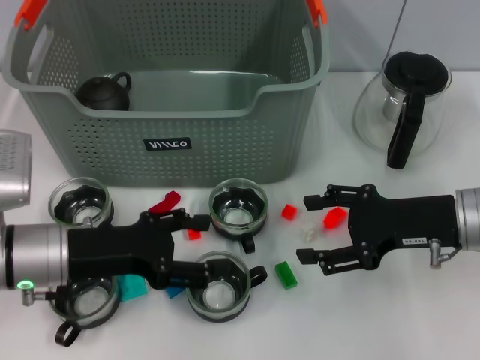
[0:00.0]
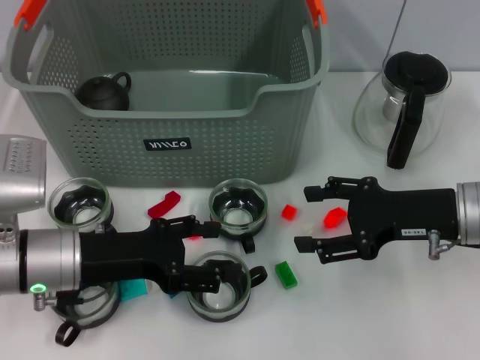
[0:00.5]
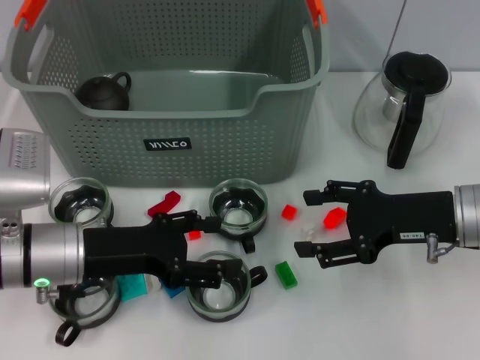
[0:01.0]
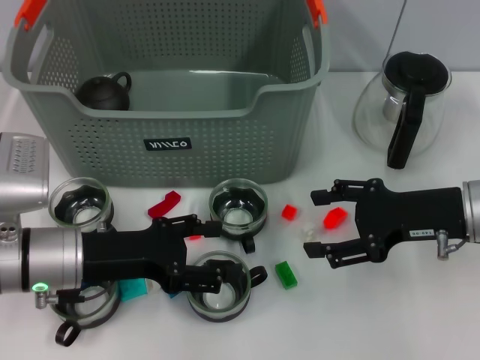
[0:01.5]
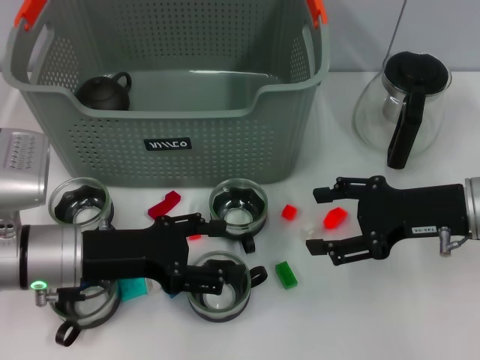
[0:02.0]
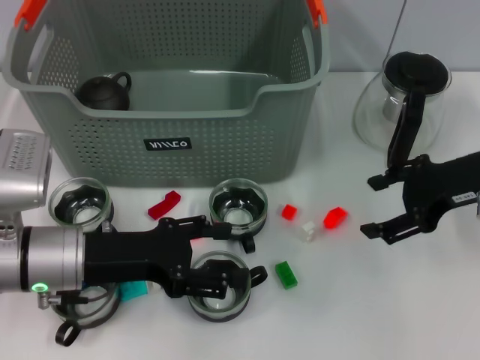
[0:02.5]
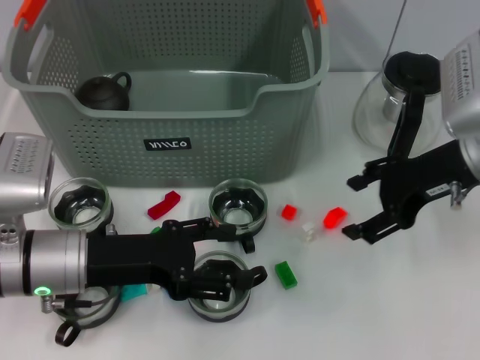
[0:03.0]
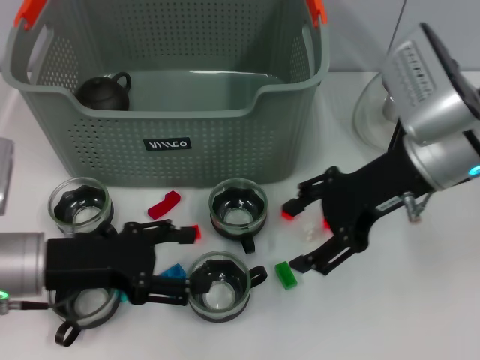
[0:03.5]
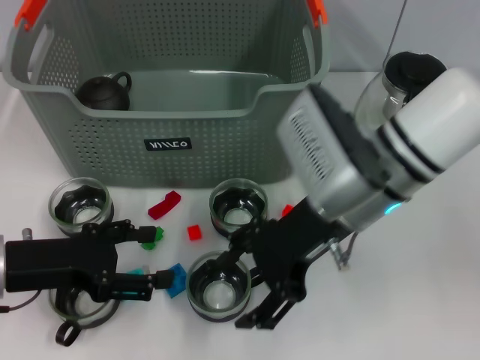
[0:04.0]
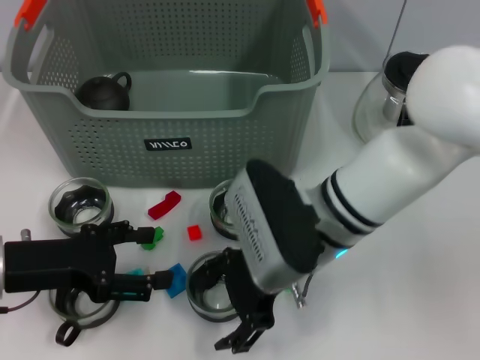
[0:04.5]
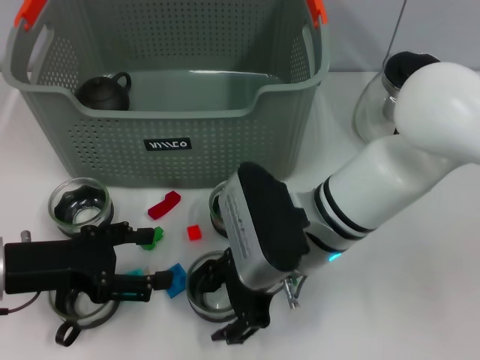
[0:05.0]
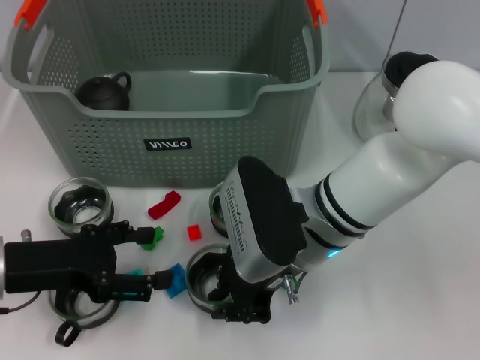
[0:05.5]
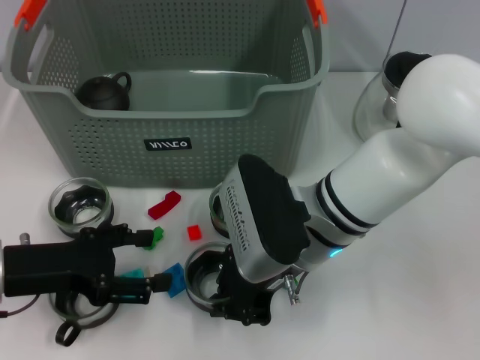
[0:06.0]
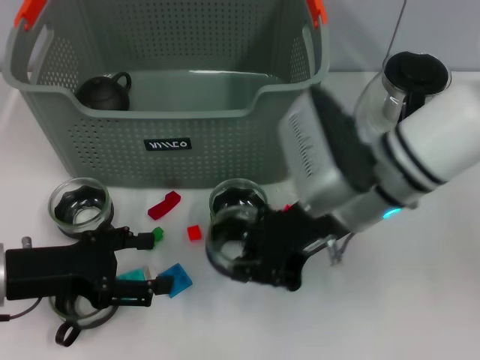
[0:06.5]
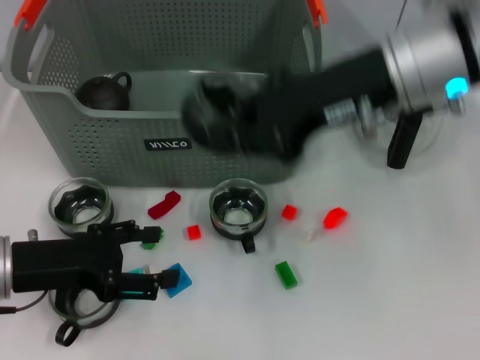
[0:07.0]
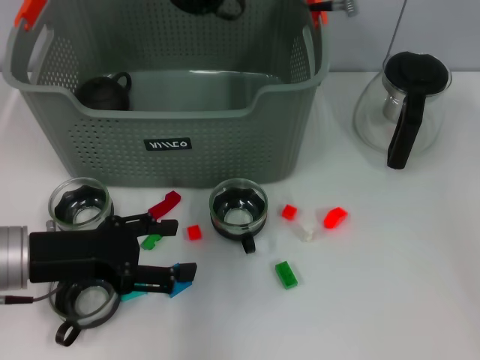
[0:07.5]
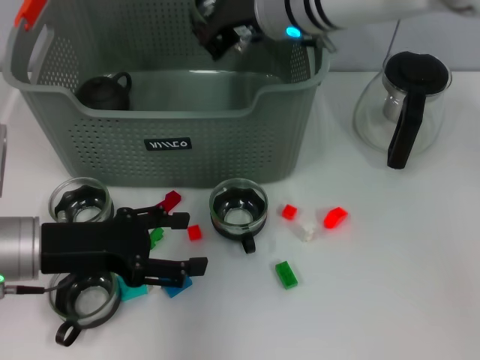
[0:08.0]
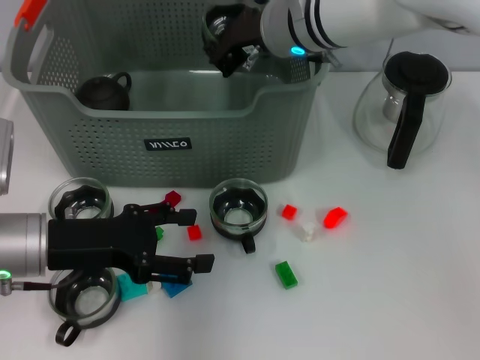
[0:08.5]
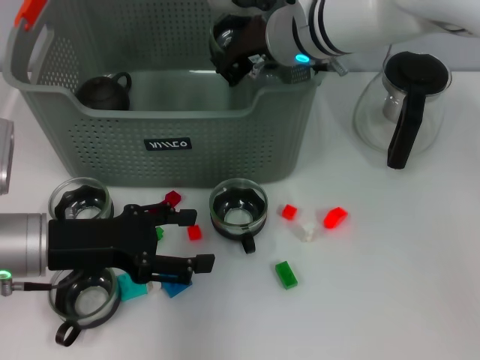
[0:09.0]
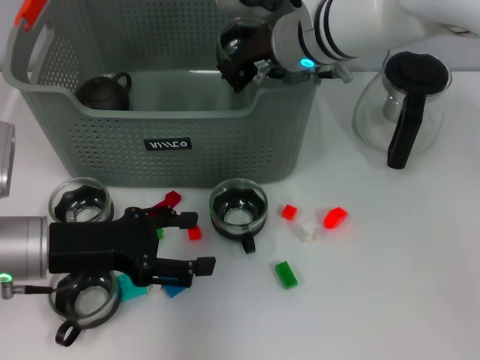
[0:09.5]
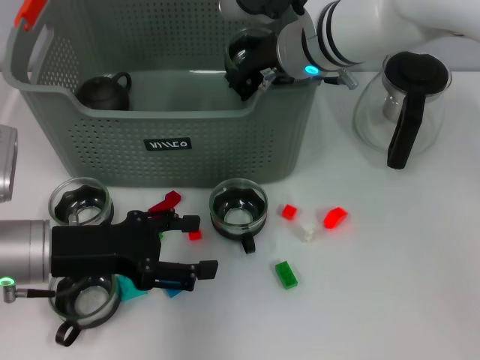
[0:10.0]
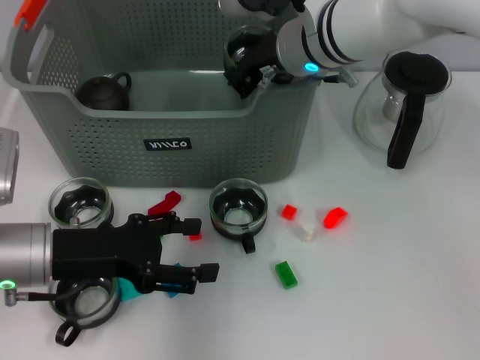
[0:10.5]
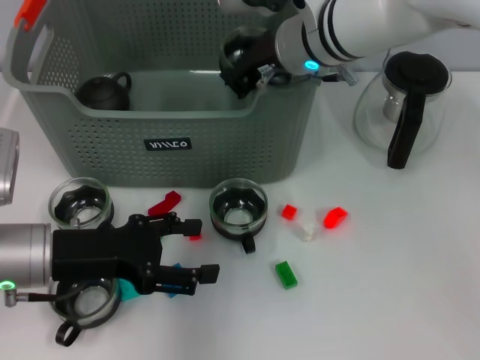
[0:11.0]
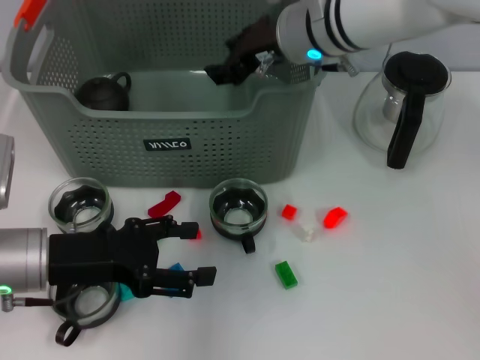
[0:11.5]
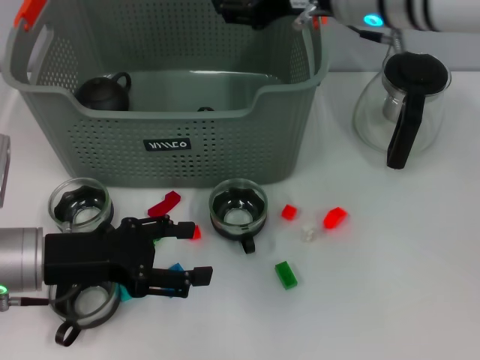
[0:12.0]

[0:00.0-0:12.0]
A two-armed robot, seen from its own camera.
Task of the whole recording: pick up the teacup on the table and place it into the storage bin, pick up the block on the table and place it into the storage bin.
Step, 0.0 to 5.5 s: Grasp the cup with right gripper.
Step, 6.0 to 11.5 s: Place the cup in the storage box with right gripper.
0.0 to 2.0 s: Both grippers stay about where they are.
2.0 to 4.0 s: The right gripper moves to the left, about 15 cm; the left gripper goes approximately 5 cm to the left.
4.0 to 6.0 s: The right gripper changes place by about 5 cm, and closes up.
6.0 to 8.0 s: The right gripper is displaced forward and upward by some 15 cm.
8.0 to 10.0 s: The grippers make only small movements.
10.0 to 12.0 s: The right gripper heads upward, covering approximately 5 cm, and opens its fingers.

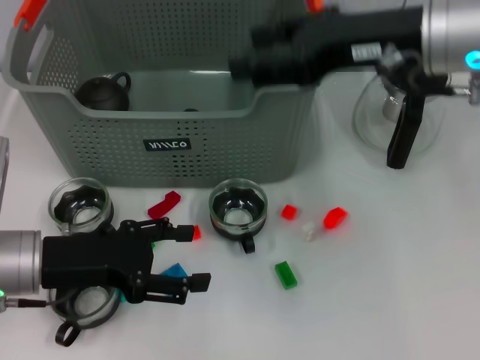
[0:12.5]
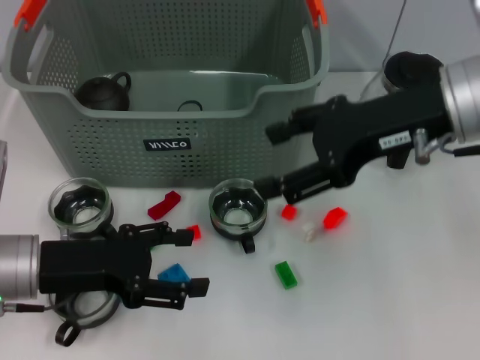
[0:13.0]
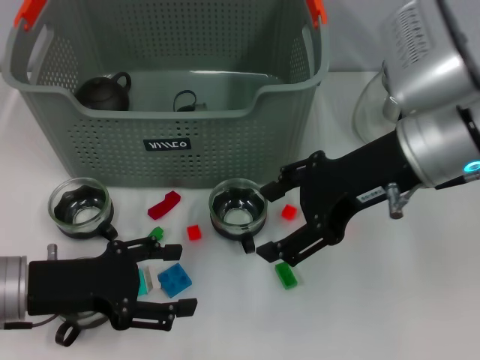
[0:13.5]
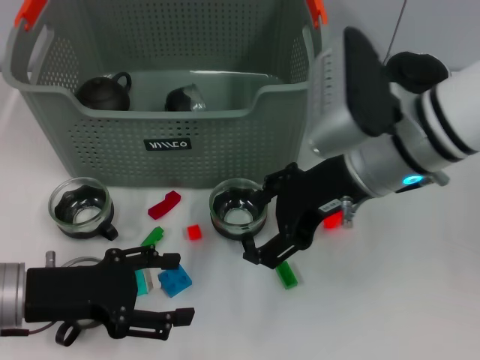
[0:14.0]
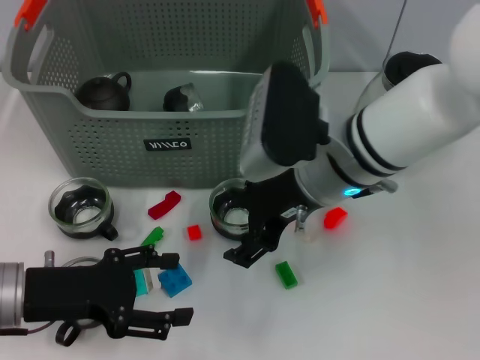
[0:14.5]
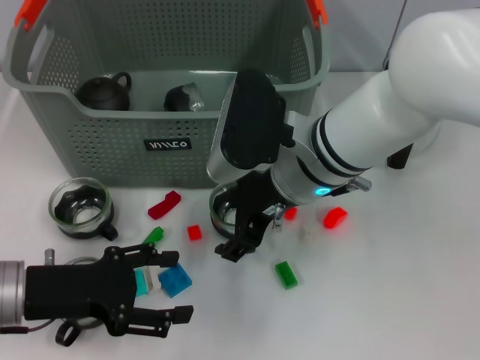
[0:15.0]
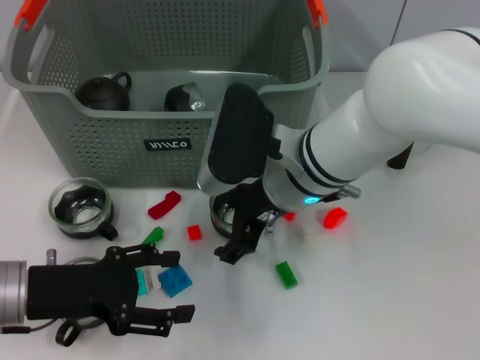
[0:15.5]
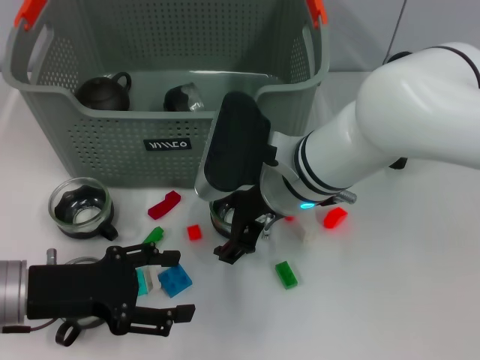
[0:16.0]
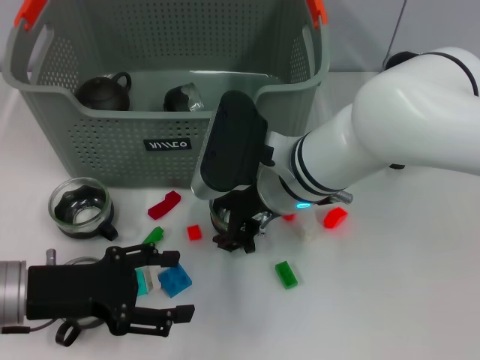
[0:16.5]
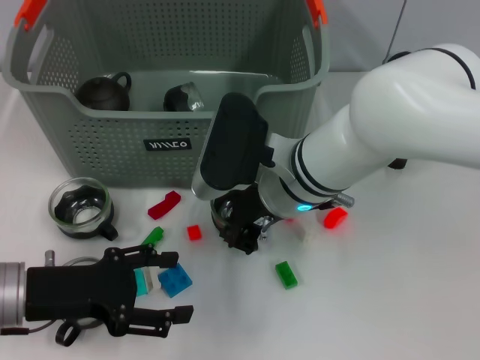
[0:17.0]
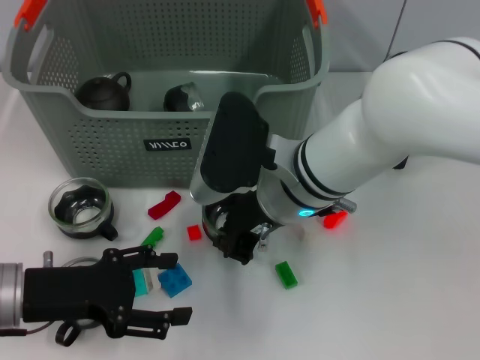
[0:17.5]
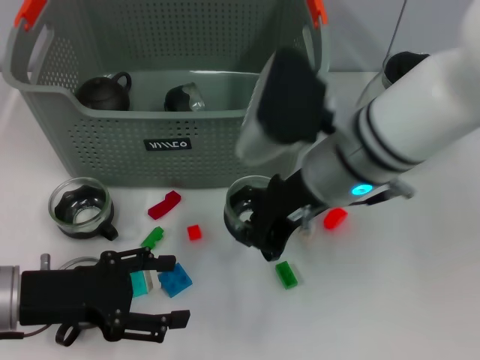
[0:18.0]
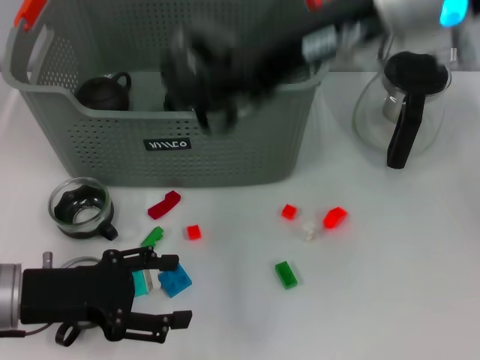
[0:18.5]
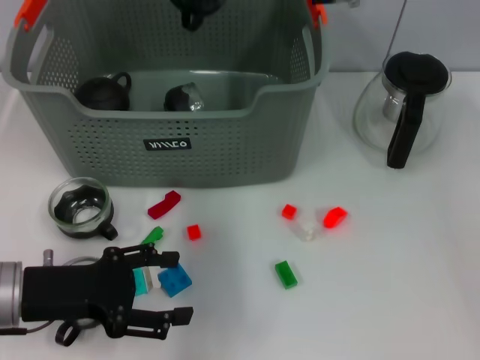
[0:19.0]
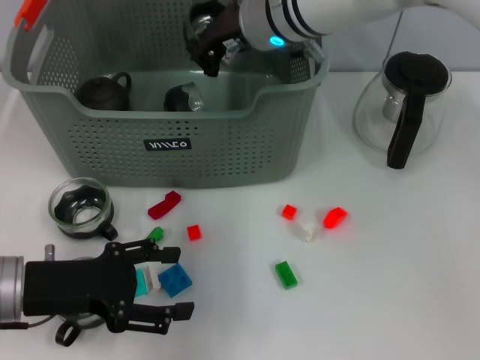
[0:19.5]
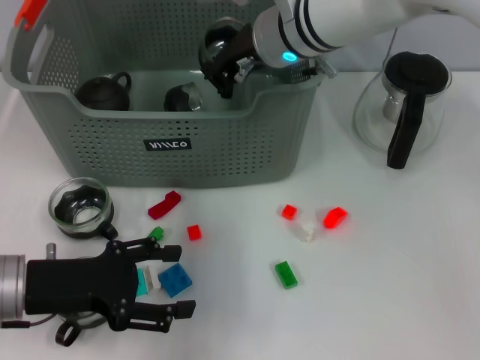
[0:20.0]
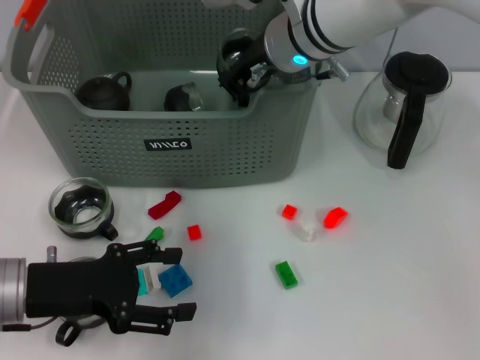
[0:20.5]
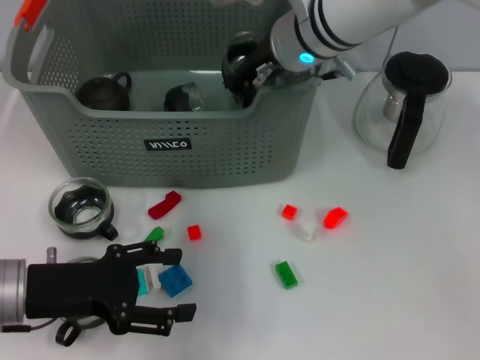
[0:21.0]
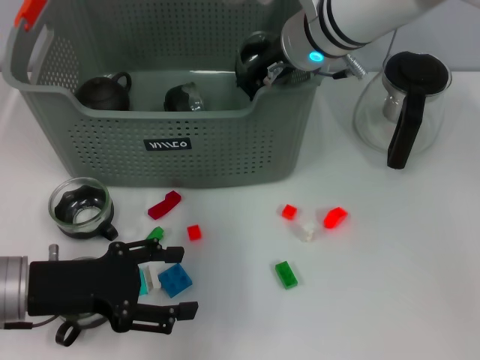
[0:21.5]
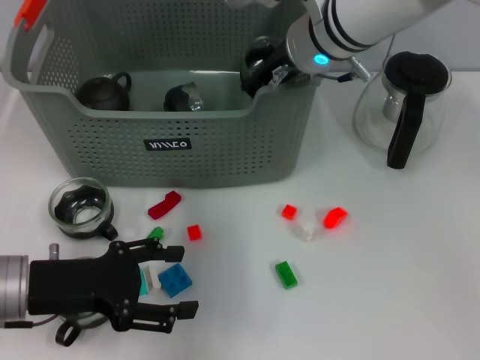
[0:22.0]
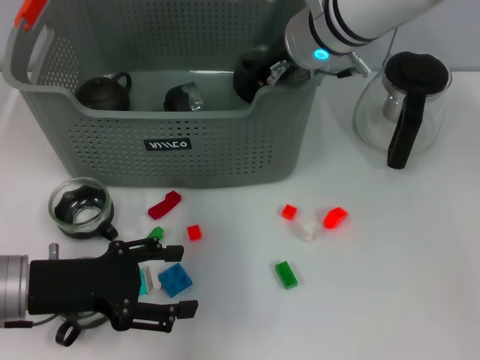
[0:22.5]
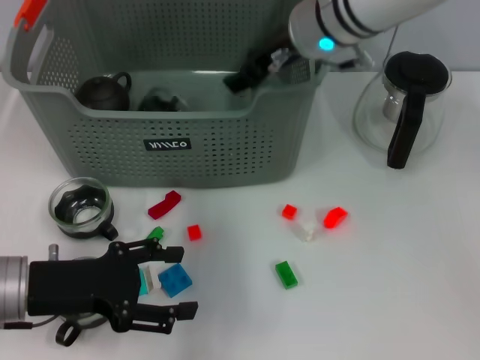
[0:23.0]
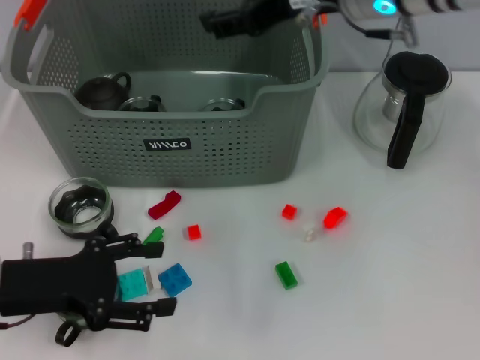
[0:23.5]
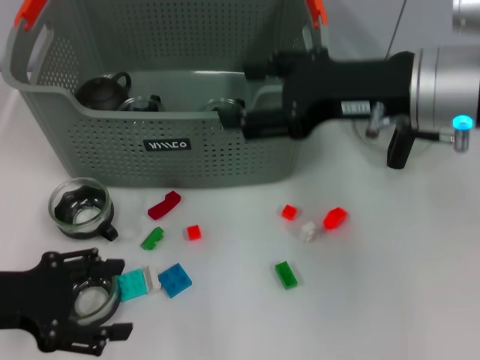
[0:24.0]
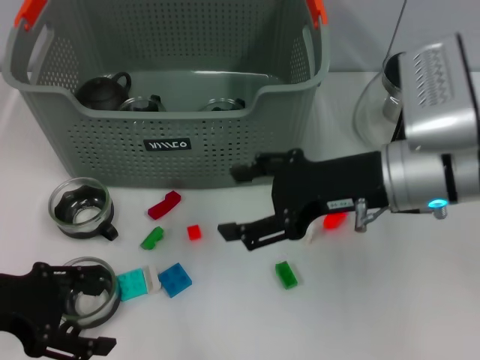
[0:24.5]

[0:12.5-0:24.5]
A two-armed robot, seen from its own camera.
Task of the whole recording: pick up the teacup on the table and place it into the storage bin, pick up the block on the table and place it into the storage bin.
Step, 12.5 to 17.0 s: Grasp the cup with right gripper.
Step, 17.5 to 23.0 s: Place the cup in the storage box with right gripper.
12.5 to 14.5 s: The right gripper shifts about 15 cm downward and to the left.
14.5 to 16.5 s: The right gripper moves about 5 cm.
16.5 to 18.5 s: The right gripper moves upward, about 20 cm, and closes its fingers.
18.5 to 20.5 s: The right gripper is displaced downward, forward and to the left by some 15 cm.
20.5 to 22.5 s: The grippers make only small movements.
22.5 to 24.5 s: The left gripper moves upward, some 5 cm; the right gripper goes some 15 cm backward and to the right, and opens its fingers.

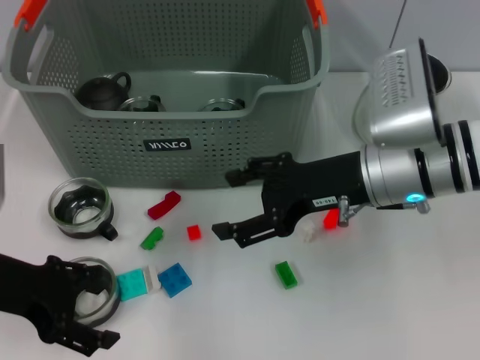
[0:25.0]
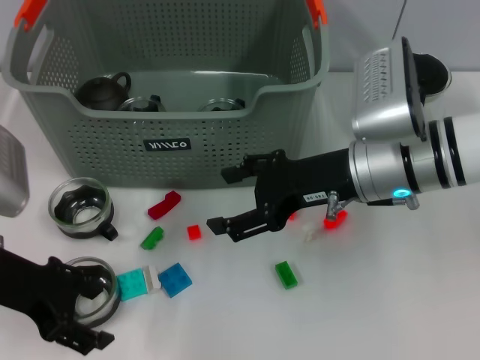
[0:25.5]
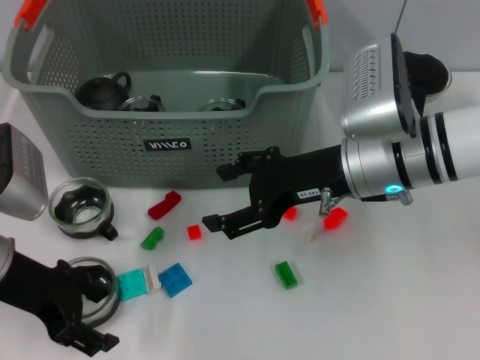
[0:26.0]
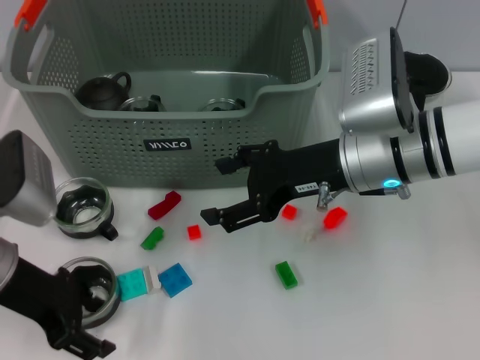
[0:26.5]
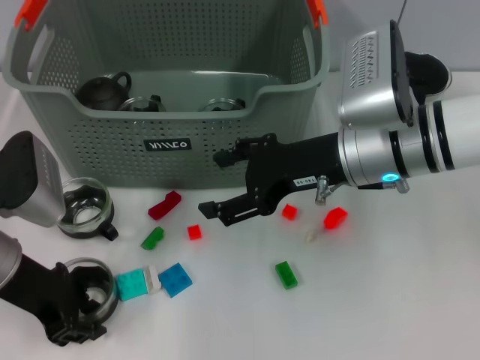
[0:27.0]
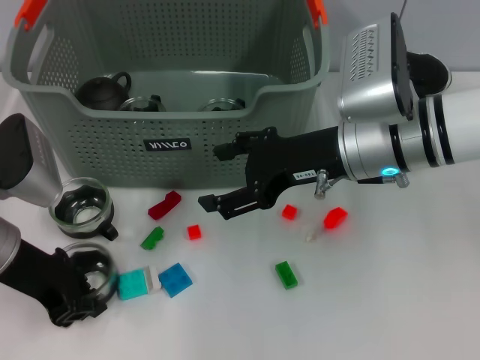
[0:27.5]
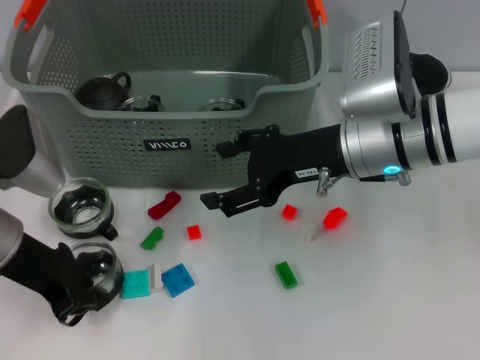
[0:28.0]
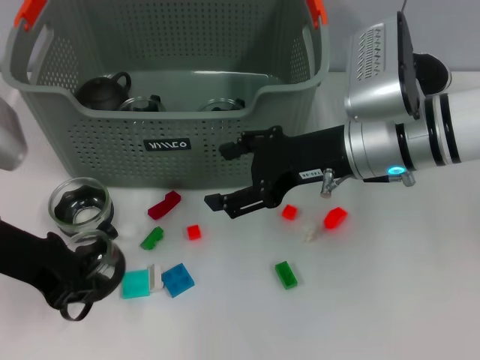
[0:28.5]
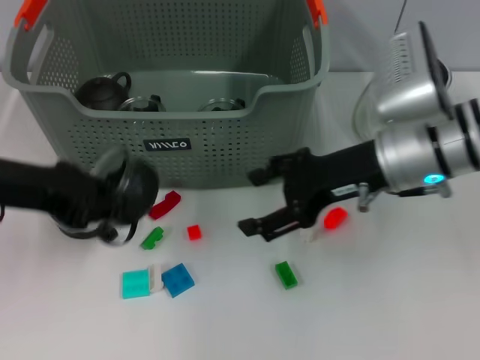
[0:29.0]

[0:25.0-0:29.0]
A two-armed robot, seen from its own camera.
Task of the whole recording: pick up the teacup on the table and place it into the storage bin, pick up the block on the table and place it into the storage bin.
Step, 25.0 to 27.0 s: Grasp the cup with left gripper.
25.0 to 27.0 s: The left gripper closes.
27.0 to 29.0 s: The left gripper is displaced upward by some 10 cm, and closes its fingers.
